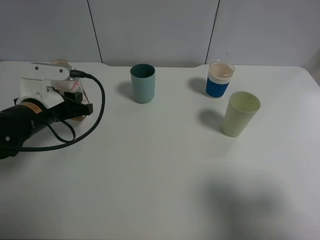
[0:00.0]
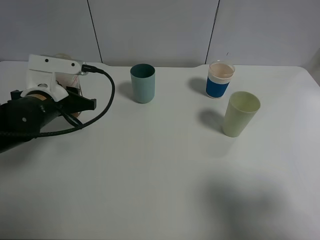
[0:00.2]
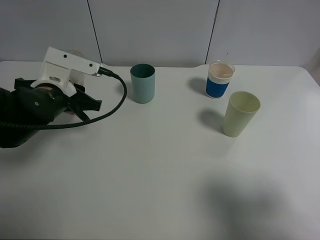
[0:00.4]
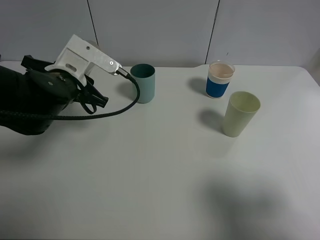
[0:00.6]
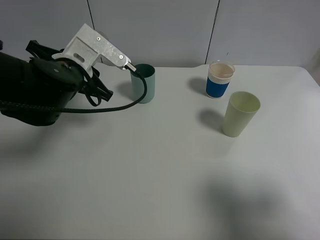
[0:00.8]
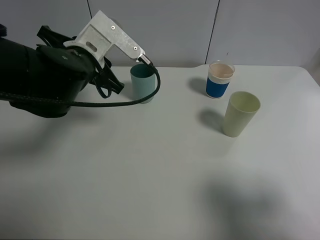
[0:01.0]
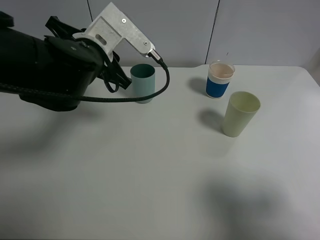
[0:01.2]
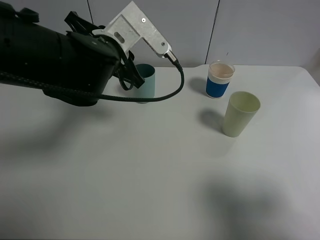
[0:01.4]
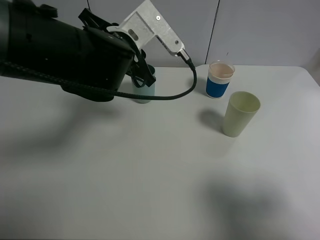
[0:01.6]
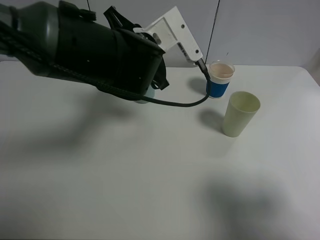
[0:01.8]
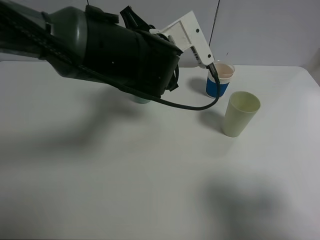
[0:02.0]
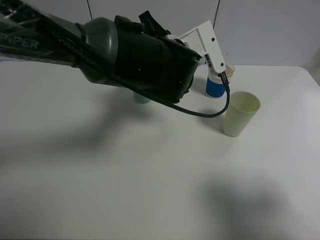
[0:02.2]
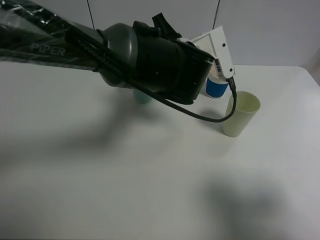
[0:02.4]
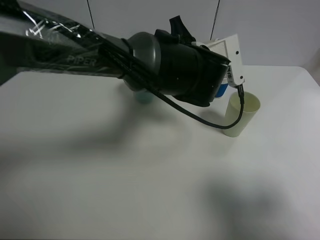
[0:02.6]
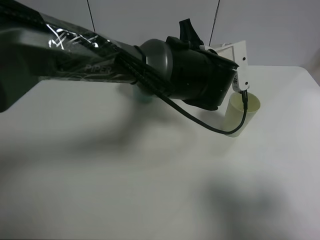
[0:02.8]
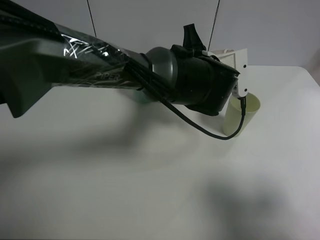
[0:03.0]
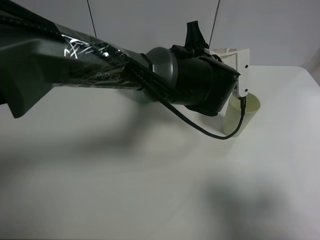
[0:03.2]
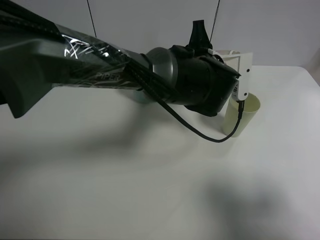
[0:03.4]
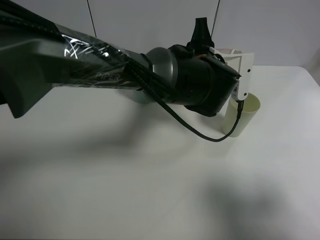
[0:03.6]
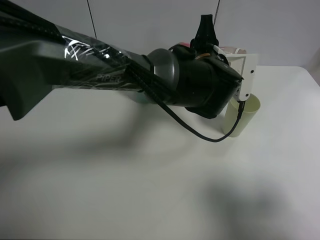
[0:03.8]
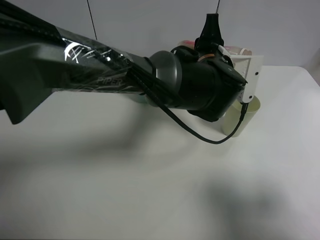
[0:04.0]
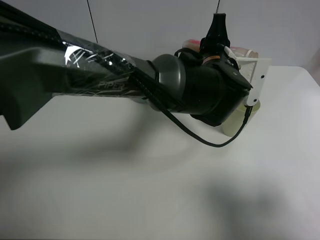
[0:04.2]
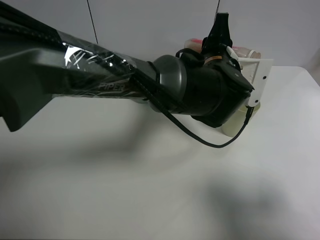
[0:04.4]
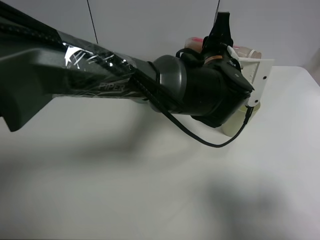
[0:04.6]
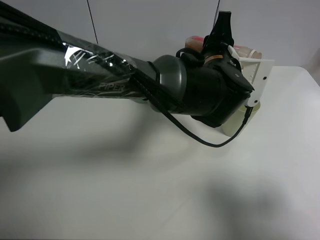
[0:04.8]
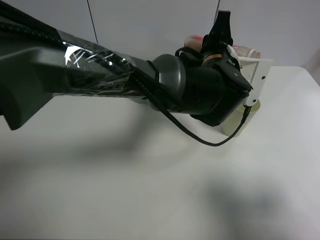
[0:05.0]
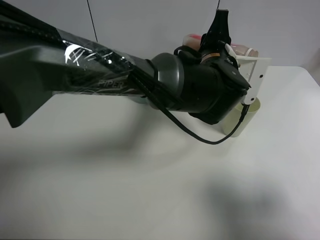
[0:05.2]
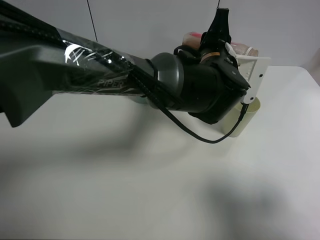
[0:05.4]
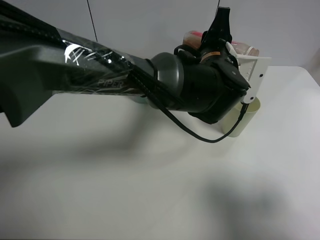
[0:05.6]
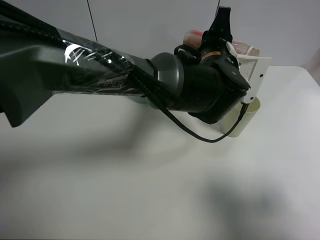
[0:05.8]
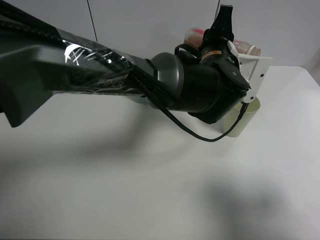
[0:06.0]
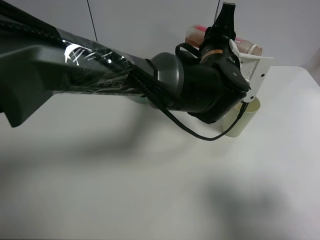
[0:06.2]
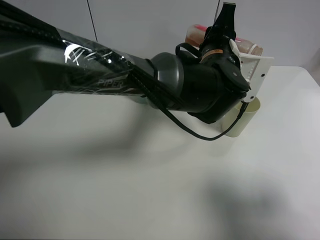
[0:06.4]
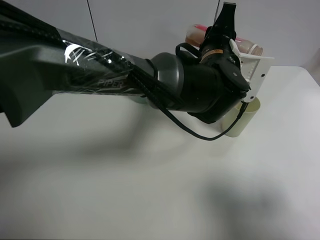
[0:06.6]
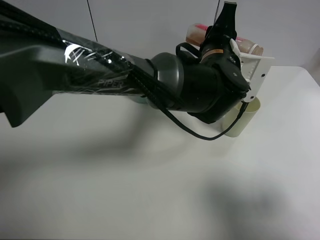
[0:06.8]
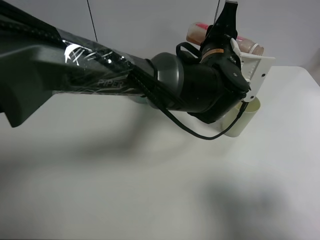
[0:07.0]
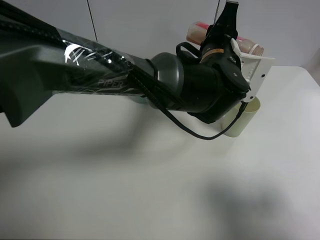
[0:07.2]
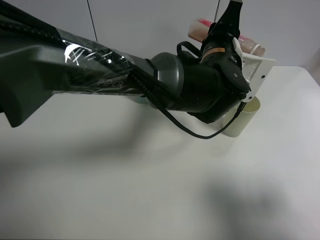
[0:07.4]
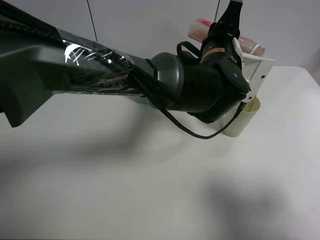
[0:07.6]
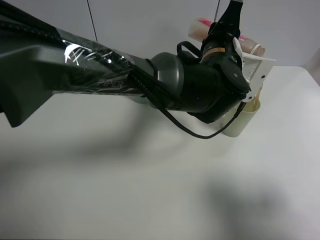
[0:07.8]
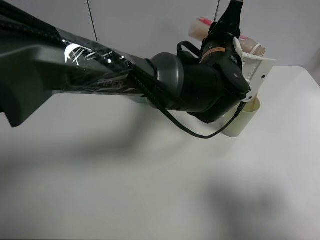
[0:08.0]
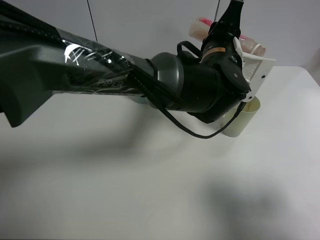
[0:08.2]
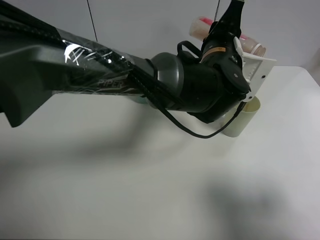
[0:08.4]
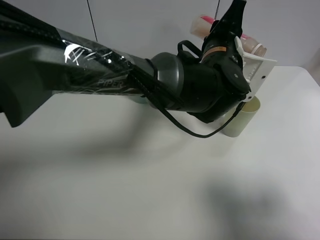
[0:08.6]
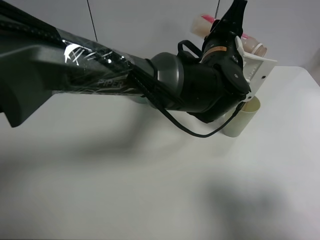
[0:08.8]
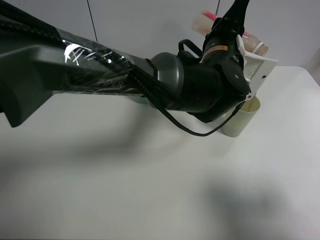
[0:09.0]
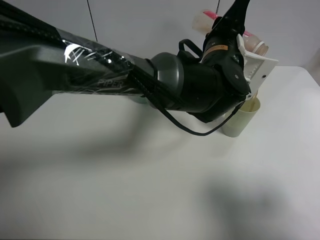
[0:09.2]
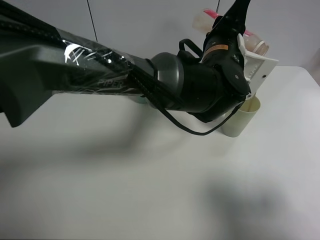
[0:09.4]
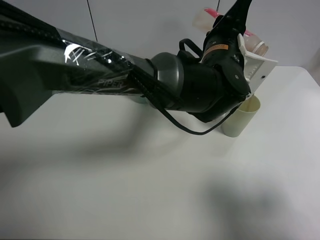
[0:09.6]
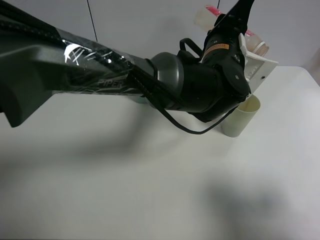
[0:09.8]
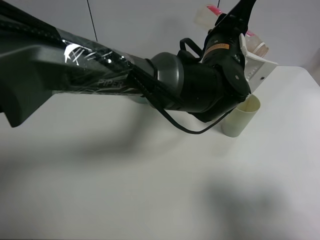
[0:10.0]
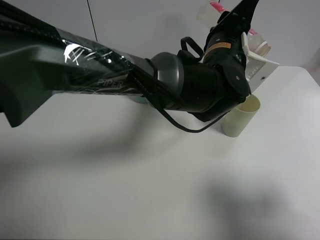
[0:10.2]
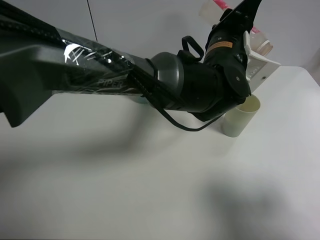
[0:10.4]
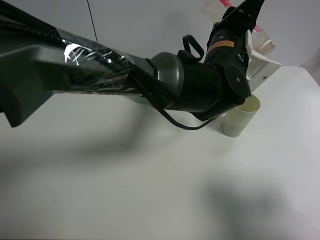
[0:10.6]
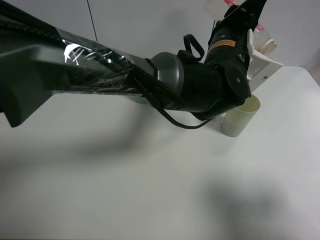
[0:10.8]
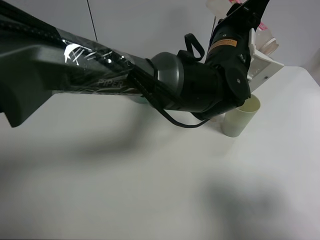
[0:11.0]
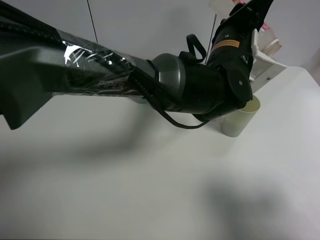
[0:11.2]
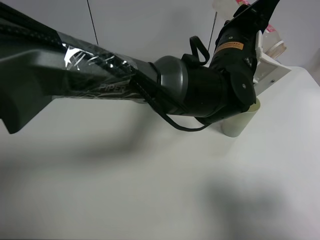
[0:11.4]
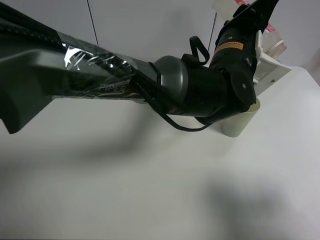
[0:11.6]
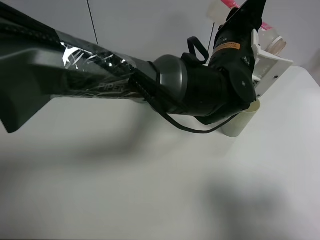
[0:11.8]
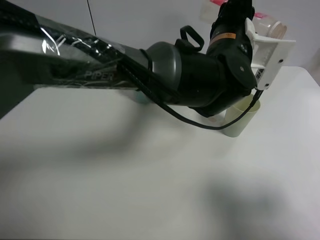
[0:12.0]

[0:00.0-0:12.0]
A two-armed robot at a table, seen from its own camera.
Task of the whole recording: use a clamp to hold the bottle of the drink, pour the beverage into a random cup, then clamp the cup containing the drink and pour the drink into another random cup.
Step, 0:00.4 to 0:12.0: Pour the drink into the green plastic cup with left gripper.
0:00.0 to 0:01.6: The left gripper is displaced to the right and upward by roughly 20 cm.
0:01.6 to 0:03.0: The left gripper goes approximately 15 cm to the right.
0:03.0 to 0:04.4: The grippers stay close to where they were, moving slightly.
0:04.4 to 0:07.6: The grippers make only small movements.
0:07.6 to 0:09.0: Neither gripper changes place.
0:09.0 to 0:12.0: The grippers make only small movements.

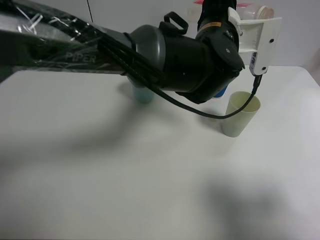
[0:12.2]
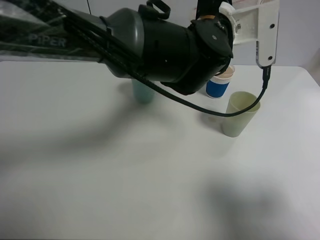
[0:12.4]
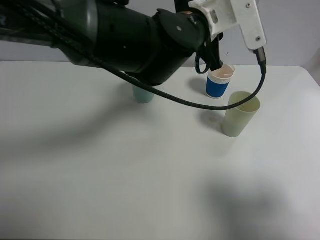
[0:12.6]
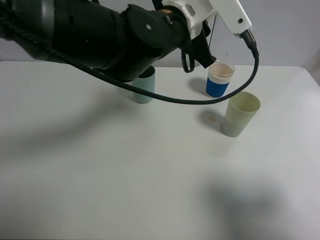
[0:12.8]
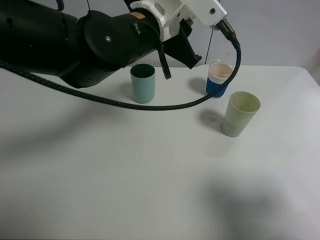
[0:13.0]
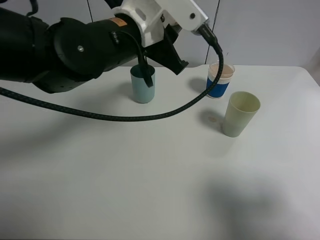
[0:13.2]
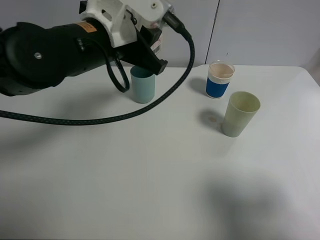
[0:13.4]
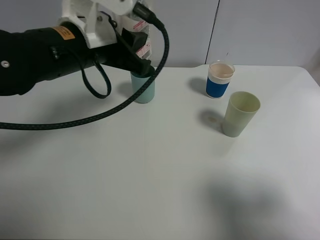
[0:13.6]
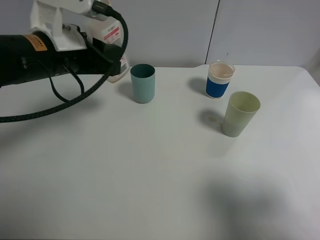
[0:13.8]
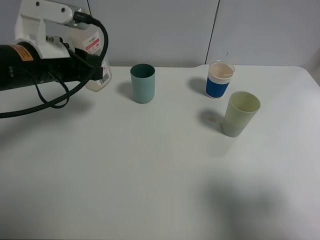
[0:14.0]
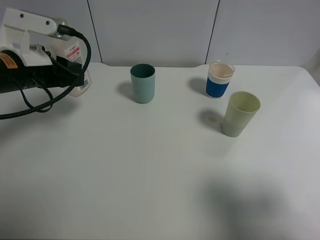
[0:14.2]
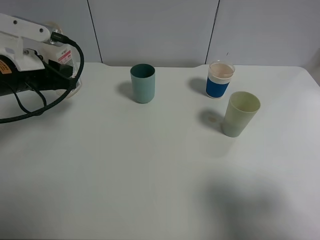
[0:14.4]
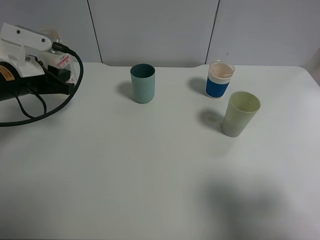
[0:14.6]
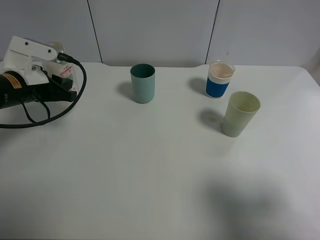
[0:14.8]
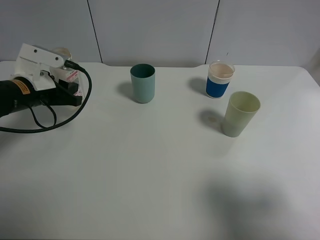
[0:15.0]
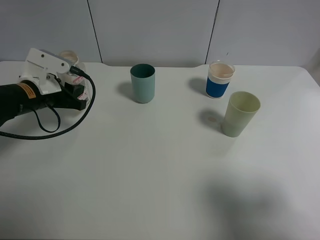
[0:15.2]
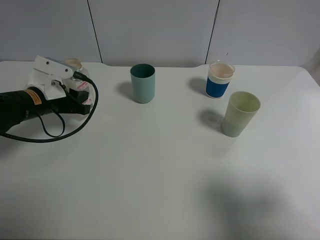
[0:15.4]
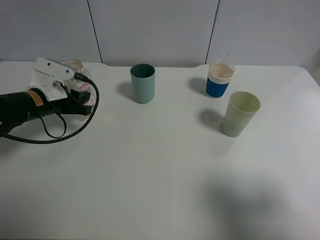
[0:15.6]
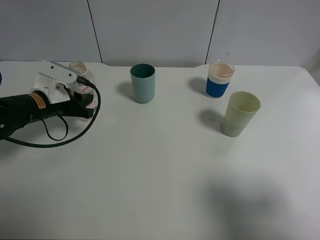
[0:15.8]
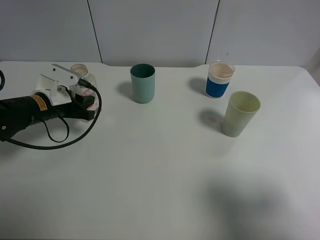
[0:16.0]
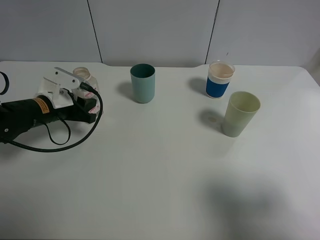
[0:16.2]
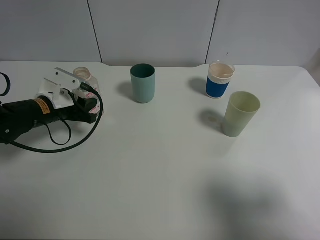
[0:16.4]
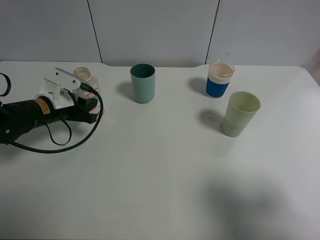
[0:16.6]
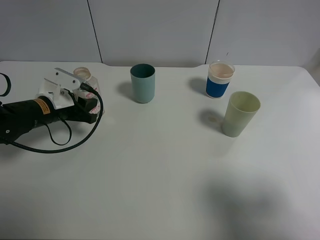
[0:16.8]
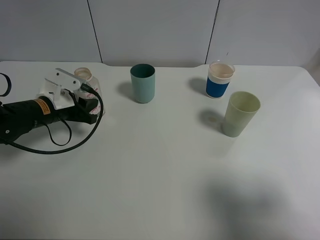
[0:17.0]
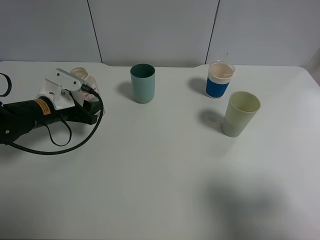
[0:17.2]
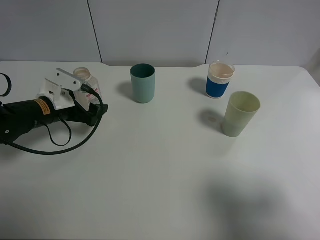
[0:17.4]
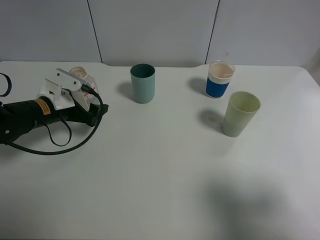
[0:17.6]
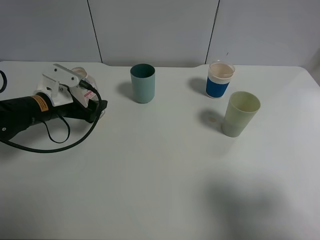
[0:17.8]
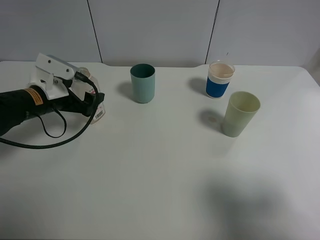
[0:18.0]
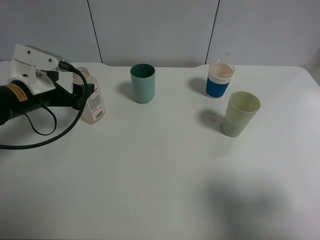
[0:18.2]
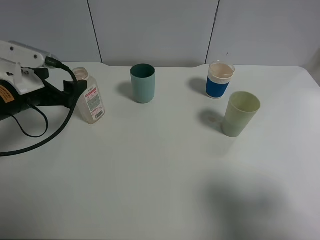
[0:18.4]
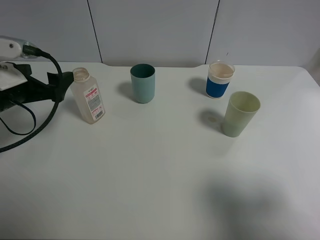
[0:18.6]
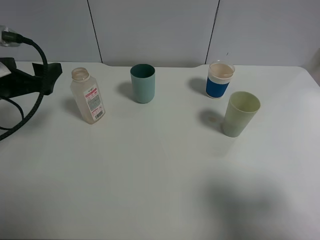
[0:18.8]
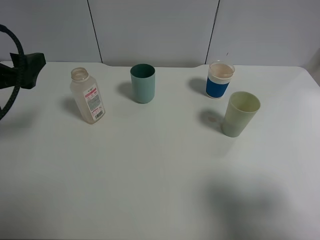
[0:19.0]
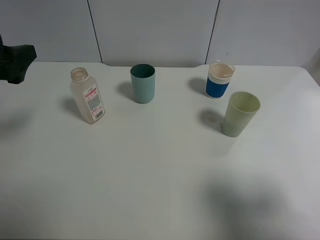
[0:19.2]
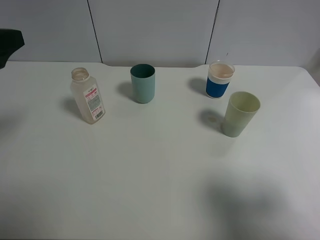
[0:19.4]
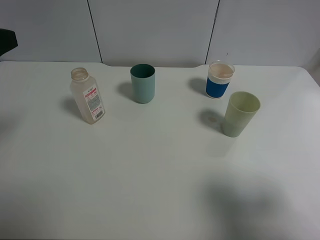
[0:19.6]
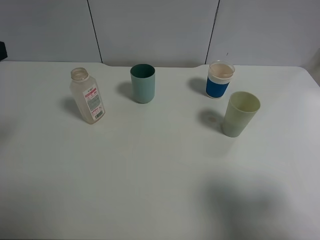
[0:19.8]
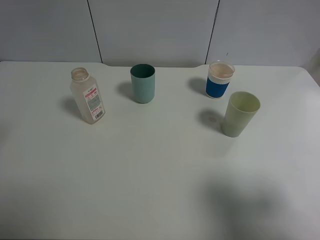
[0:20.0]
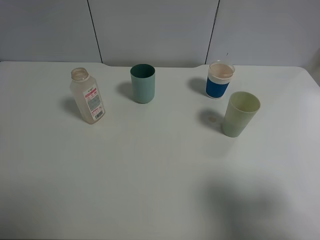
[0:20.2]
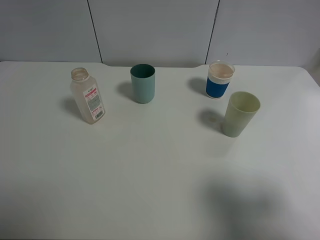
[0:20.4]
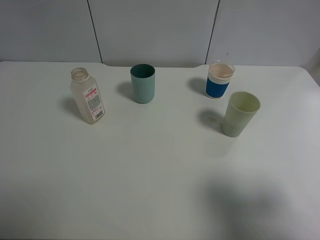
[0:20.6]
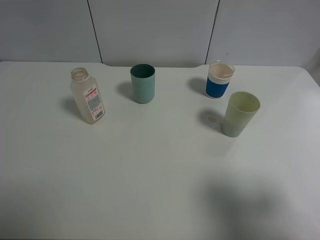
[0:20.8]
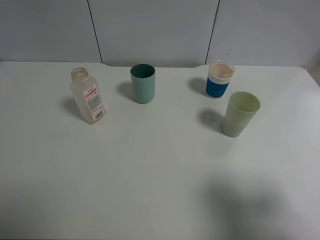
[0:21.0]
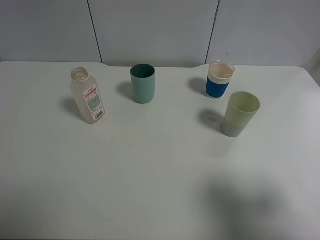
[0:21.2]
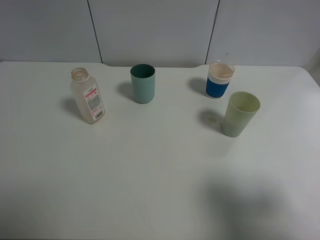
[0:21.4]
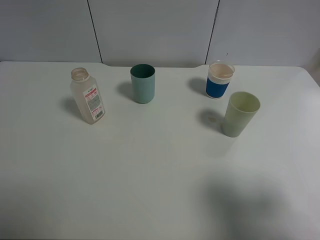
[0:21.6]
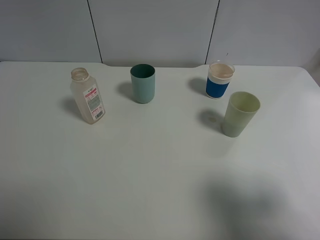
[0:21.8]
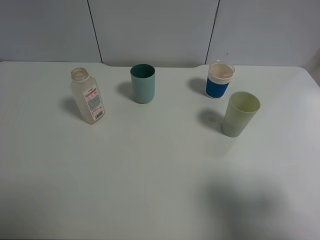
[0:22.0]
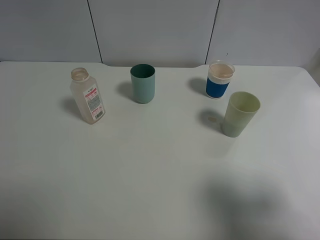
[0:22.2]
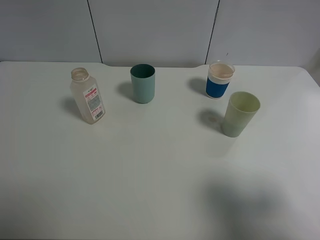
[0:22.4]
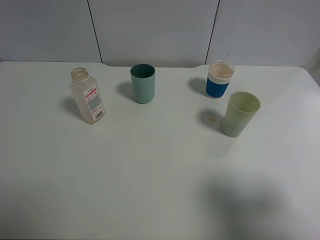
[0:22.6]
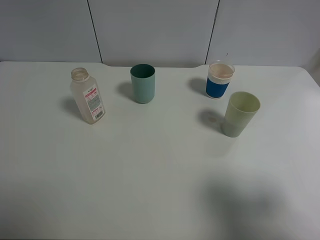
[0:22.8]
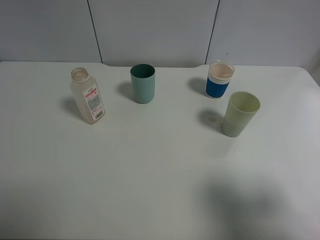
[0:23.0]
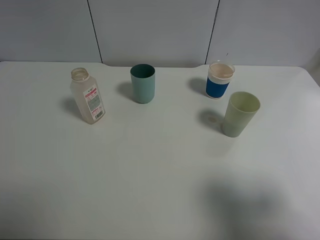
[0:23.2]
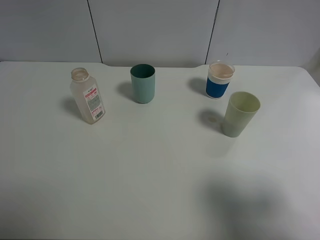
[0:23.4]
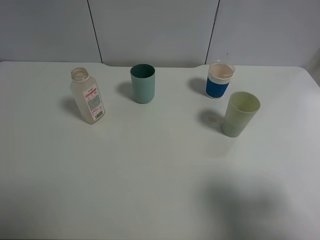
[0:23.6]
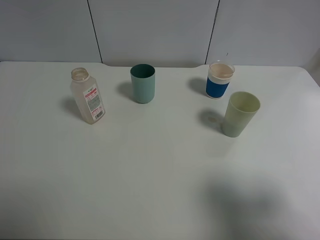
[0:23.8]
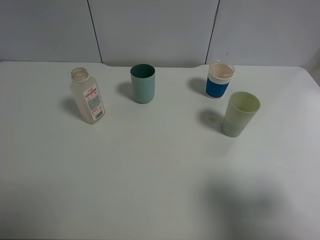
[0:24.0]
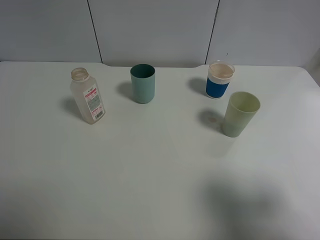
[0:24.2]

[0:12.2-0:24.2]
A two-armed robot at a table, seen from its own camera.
Task of the whole recording: use a clamp to hold the bottle of the drink, pour the beverage into a random cup, then clamp the cup containing the drink and pour the drink into another random cup.
Step, 0:12.2 to 0:17.8: Place the drink bottle on the table with left gripper.
0:12.2 to 0:13.8: The left gripper moves to the left, some 25 cm.
0:13.8 to 0:15.2: The left gripper moves downward and to the left, approximately 15 cm.
0:15.2 to 0:16.6: The grippers make only small movements.
0:16.6 to 0:18.2: The left gripper moves upward, roughly 5 cm, and opens.
0:18.2 to 0:19.8: The left gripper goes roughly 20 cm upward and backward.
0:22.6 to 0:24.2: Neither gripper changes place.
